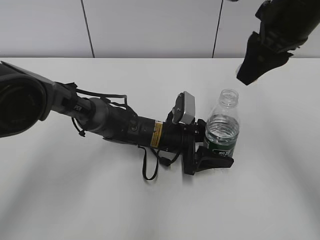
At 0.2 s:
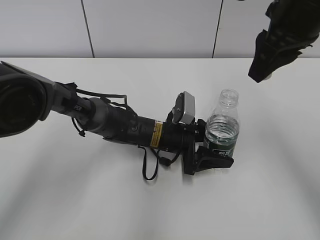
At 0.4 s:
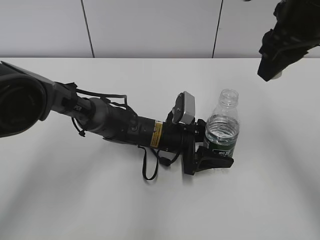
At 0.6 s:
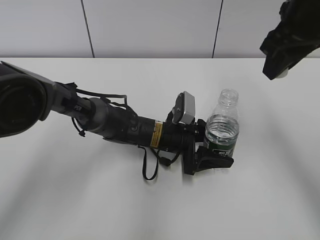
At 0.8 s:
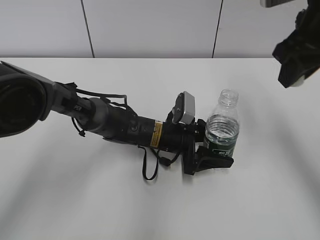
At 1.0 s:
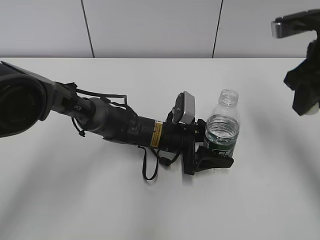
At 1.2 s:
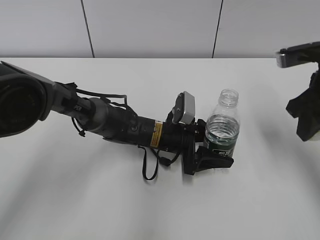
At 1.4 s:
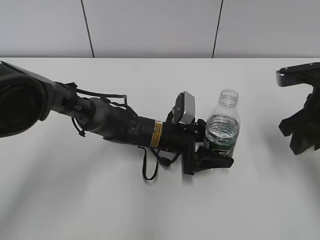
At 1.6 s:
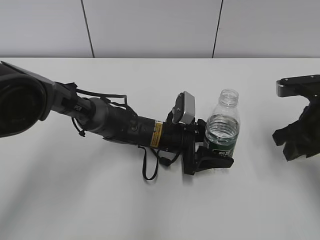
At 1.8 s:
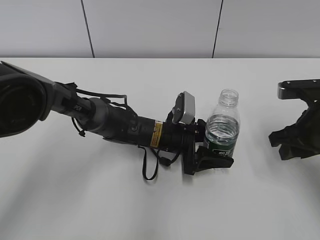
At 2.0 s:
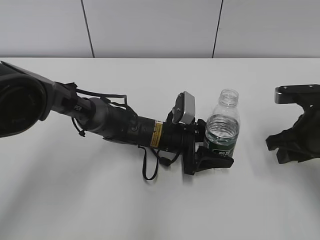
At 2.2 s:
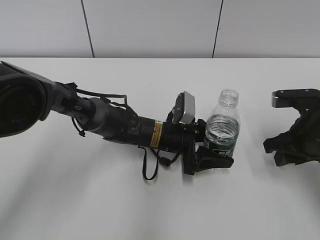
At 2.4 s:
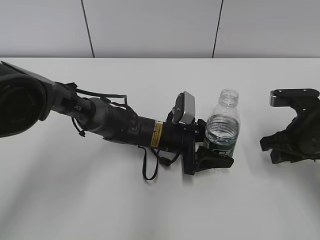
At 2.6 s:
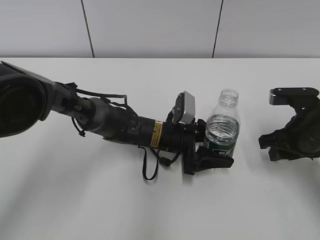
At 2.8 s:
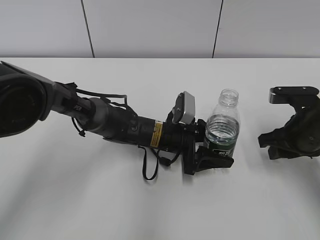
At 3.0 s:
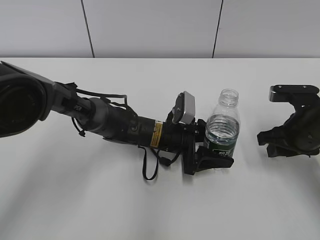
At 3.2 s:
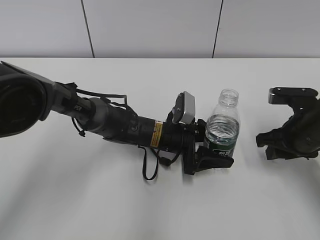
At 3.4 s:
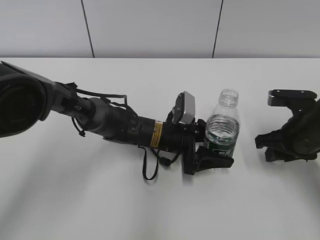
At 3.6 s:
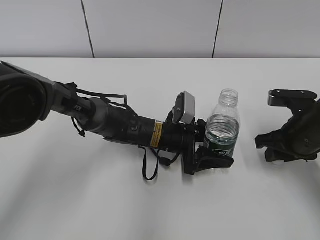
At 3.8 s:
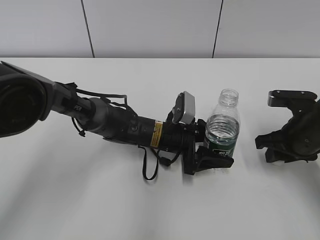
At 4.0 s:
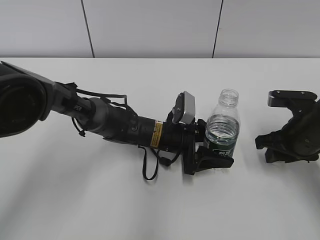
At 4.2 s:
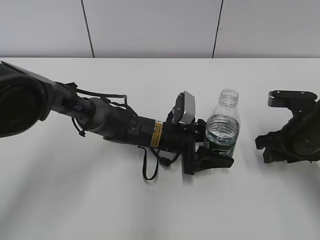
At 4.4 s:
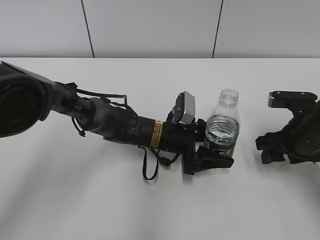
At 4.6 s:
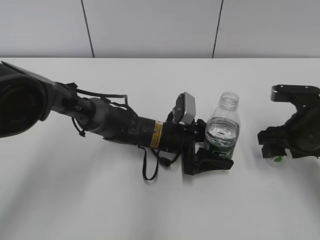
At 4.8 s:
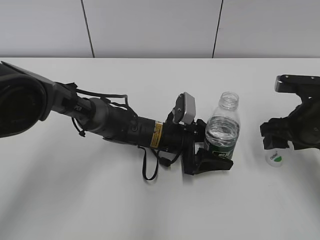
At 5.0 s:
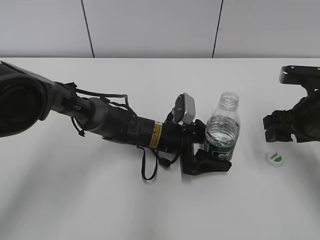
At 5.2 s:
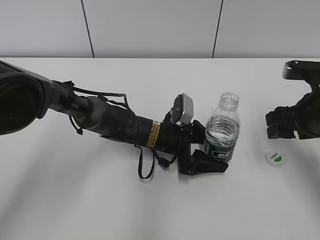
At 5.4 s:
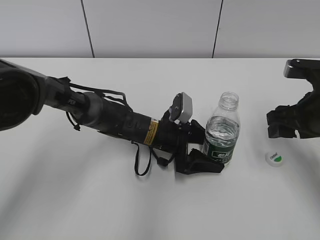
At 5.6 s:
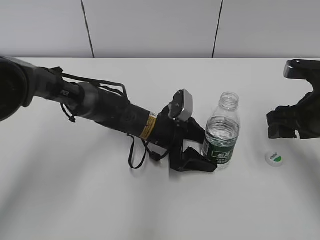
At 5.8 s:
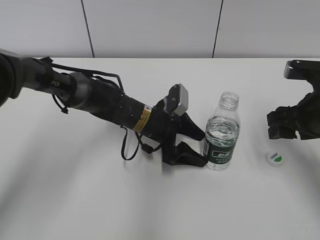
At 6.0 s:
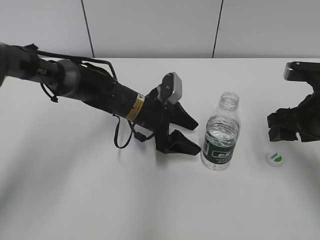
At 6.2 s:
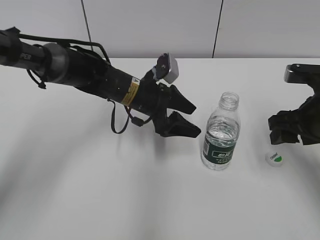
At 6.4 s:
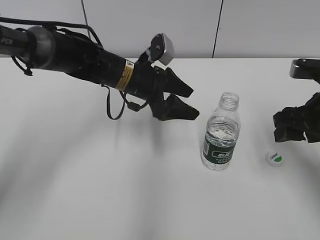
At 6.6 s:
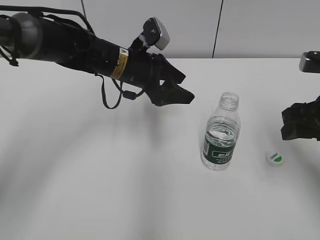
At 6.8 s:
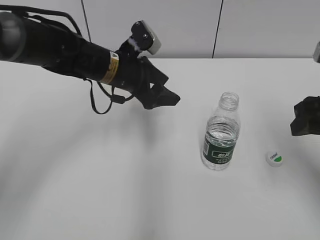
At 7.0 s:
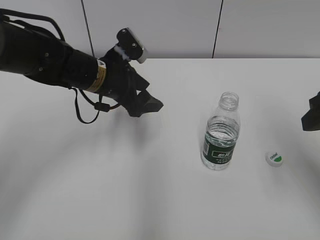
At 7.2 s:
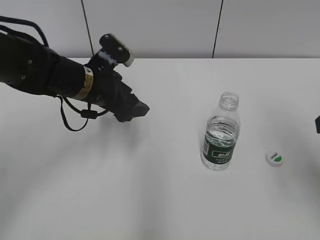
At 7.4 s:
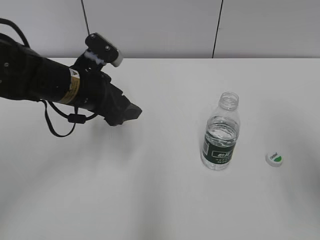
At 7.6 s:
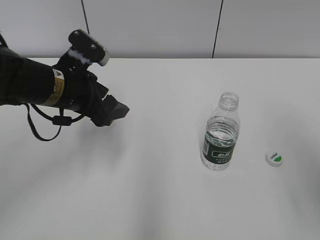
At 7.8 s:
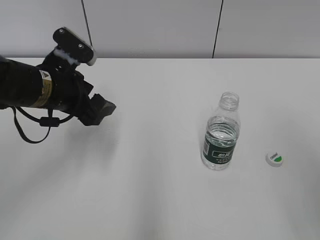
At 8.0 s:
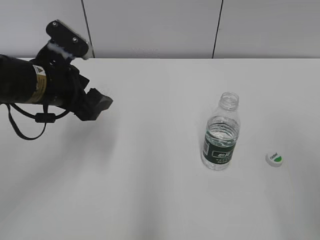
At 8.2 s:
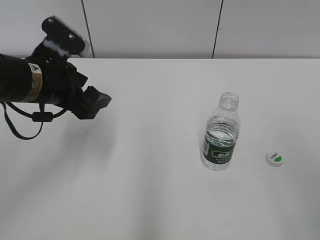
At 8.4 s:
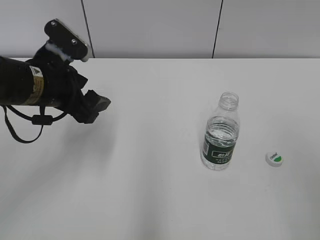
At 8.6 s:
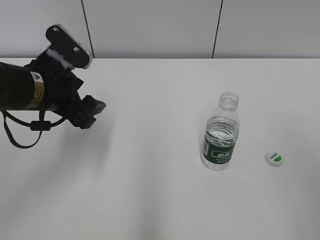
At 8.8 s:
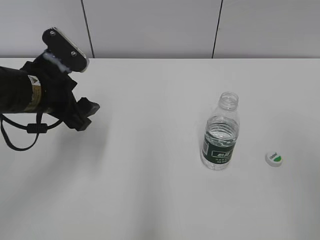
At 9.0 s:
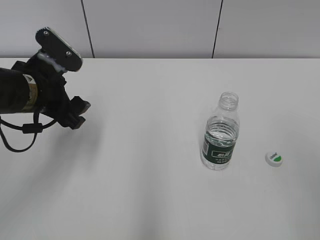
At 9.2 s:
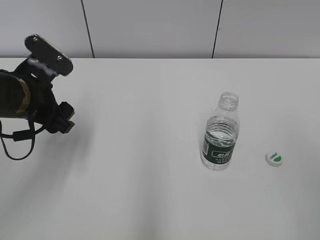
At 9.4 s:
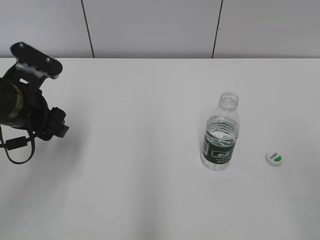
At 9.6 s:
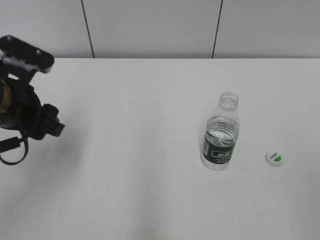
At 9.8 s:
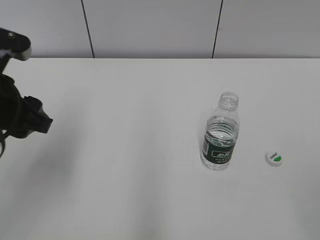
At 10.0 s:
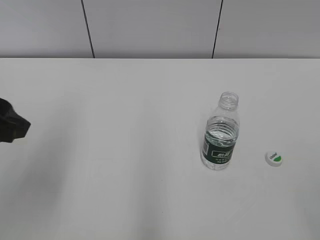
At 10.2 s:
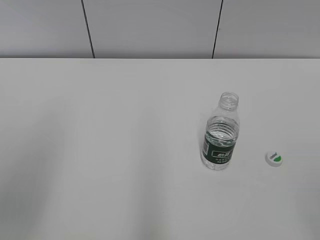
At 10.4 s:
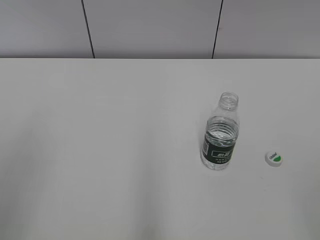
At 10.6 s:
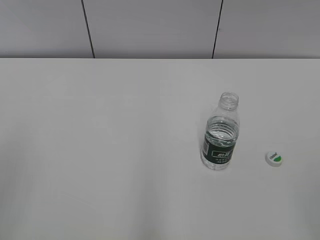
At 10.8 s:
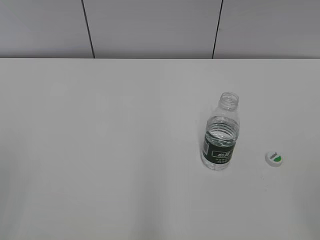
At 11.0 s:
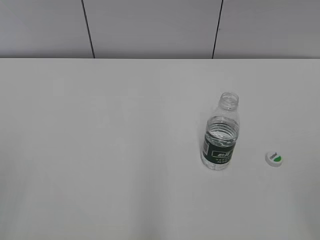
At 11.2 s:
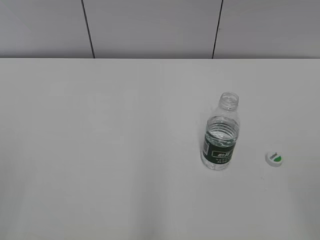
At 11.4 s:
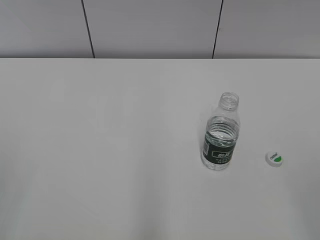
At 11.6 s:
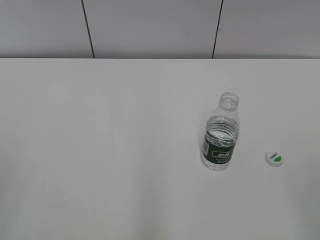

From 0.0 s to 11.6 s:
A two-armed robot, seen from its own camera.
Step, from 0.0 s to 5.0 s: Place the bottle cap on the table with the right hand.
Step, from 5.2 s to 6.0 s: Place the C'estbon with the left hand.
From 0.0 s to 1.4 s: The right gripper goes approximately 15 cm downward and to the right.
From 1.4 s to 2.8 s: The right gripper heads downward, covering roughly 5 cm.
From 2.8 s to 4.4 s: The right gripper opens.
From 4.4 s to 5.8 s: The right gripper moves upward, about 5 cm.
From 5.8 s to 7.2 s: The right gripper goes some 15 cm upward and backward. Meanwhile the left gripper heads upward and to the left, covering approximately 15 cm.
From 7.2 s to 8.8 s: The left gripper moves backward and to the left, roughly 10 cm. The right gripper goes roughly 15 cm backward and upward.
From 8.8 s to 10.2 s: The left gripper moves backward, upward and to the left, roughly 20 cm, and closes up.

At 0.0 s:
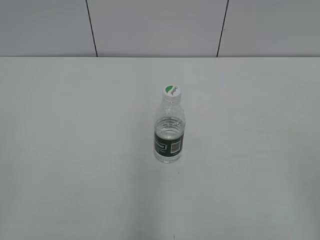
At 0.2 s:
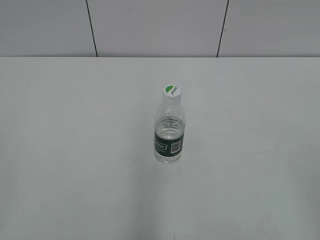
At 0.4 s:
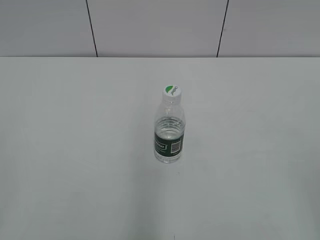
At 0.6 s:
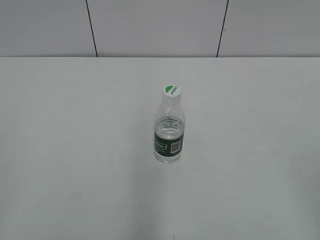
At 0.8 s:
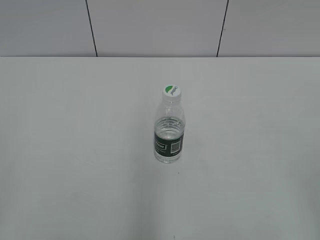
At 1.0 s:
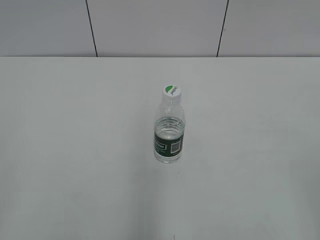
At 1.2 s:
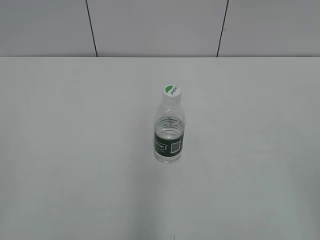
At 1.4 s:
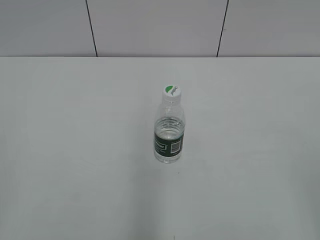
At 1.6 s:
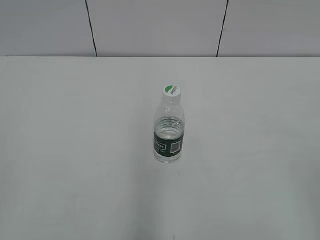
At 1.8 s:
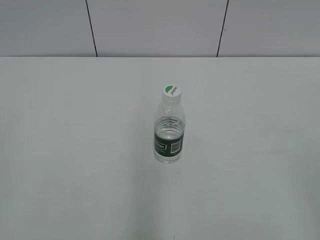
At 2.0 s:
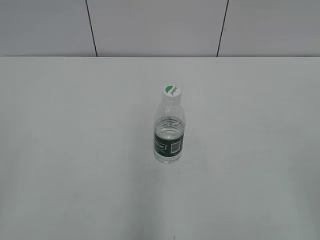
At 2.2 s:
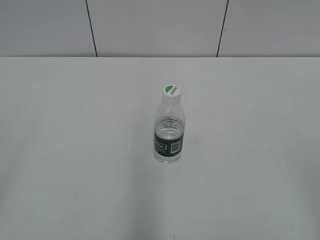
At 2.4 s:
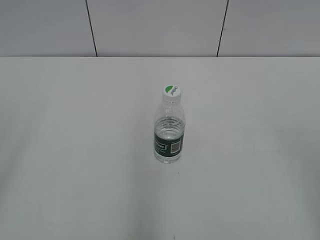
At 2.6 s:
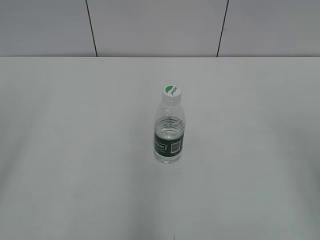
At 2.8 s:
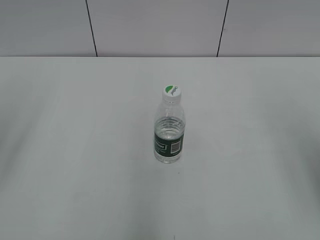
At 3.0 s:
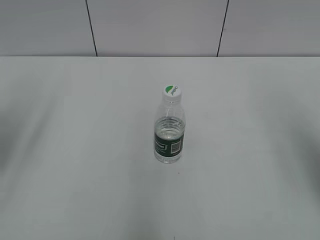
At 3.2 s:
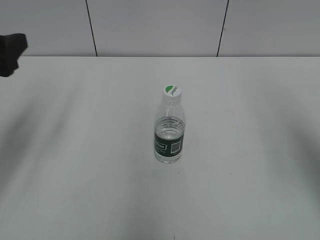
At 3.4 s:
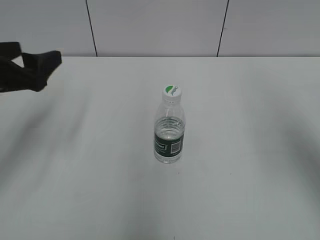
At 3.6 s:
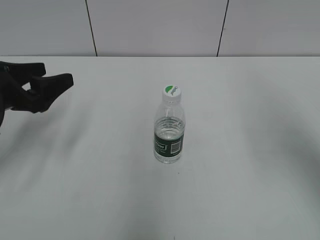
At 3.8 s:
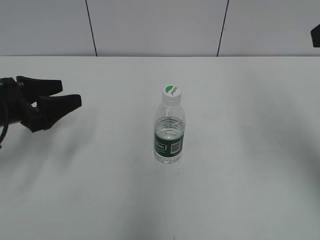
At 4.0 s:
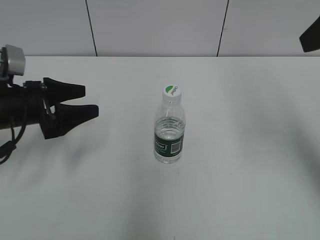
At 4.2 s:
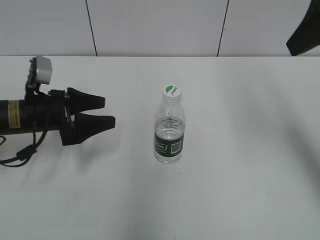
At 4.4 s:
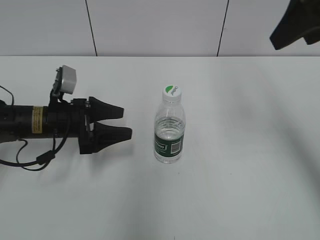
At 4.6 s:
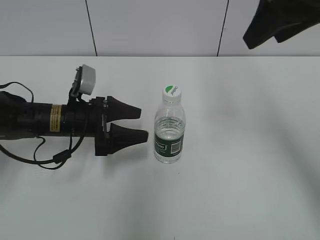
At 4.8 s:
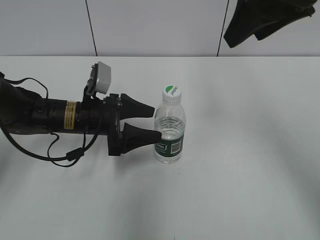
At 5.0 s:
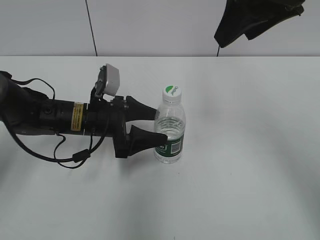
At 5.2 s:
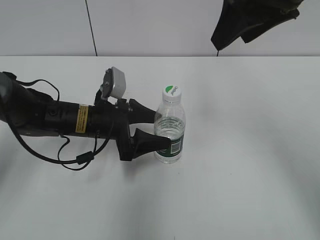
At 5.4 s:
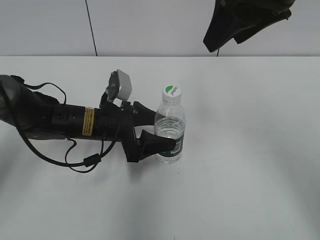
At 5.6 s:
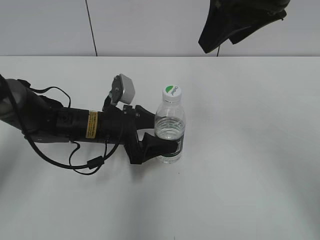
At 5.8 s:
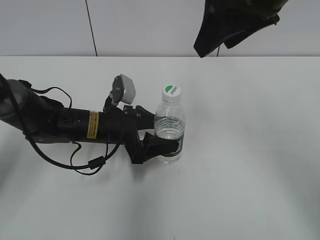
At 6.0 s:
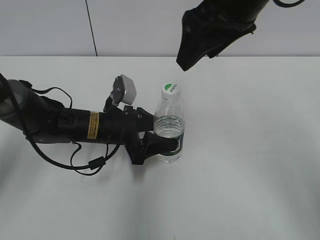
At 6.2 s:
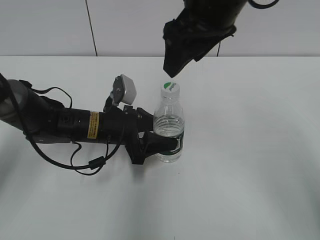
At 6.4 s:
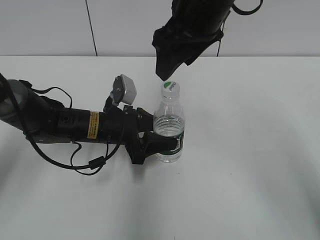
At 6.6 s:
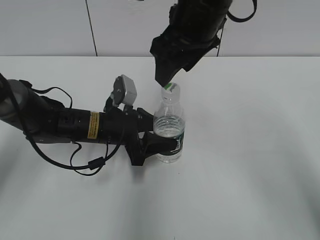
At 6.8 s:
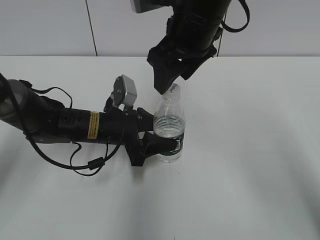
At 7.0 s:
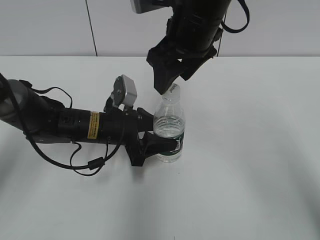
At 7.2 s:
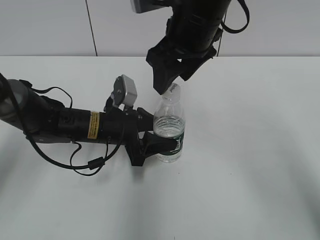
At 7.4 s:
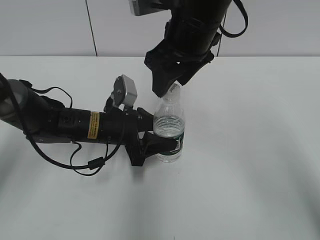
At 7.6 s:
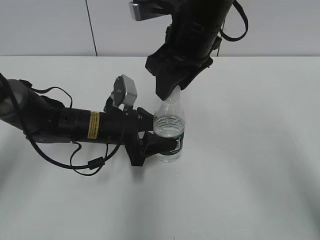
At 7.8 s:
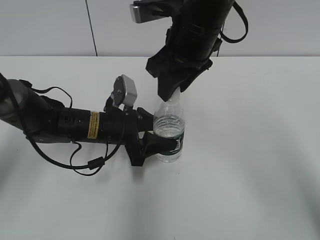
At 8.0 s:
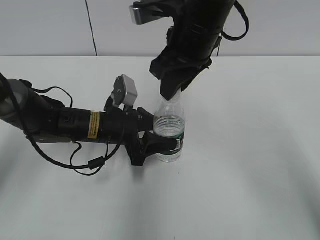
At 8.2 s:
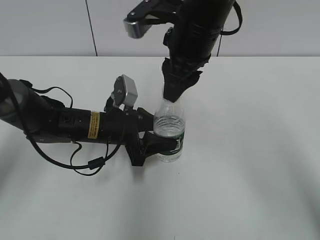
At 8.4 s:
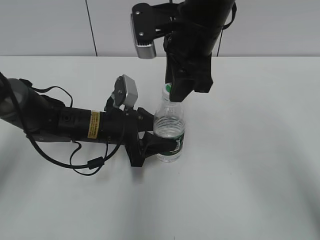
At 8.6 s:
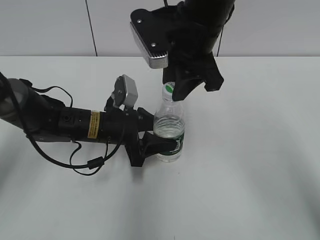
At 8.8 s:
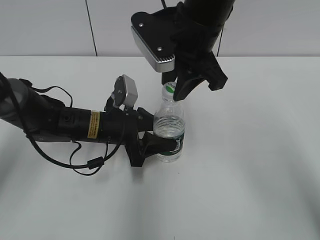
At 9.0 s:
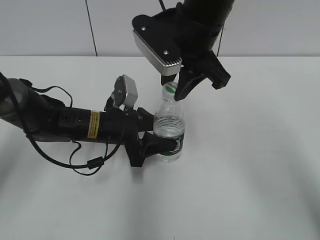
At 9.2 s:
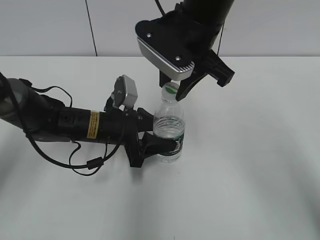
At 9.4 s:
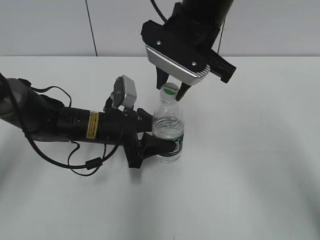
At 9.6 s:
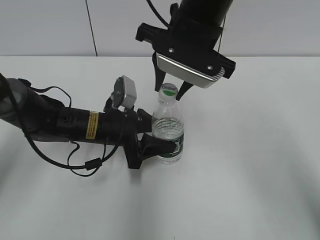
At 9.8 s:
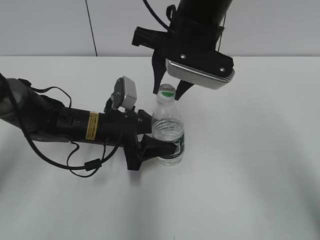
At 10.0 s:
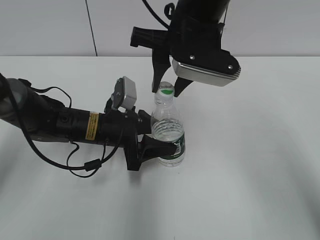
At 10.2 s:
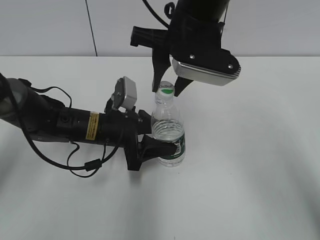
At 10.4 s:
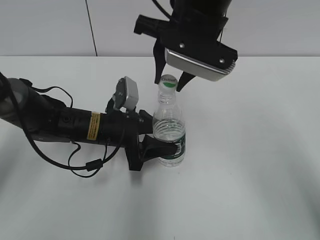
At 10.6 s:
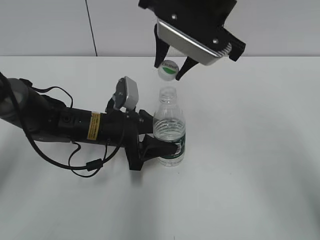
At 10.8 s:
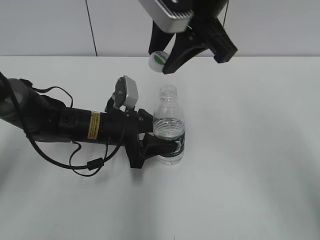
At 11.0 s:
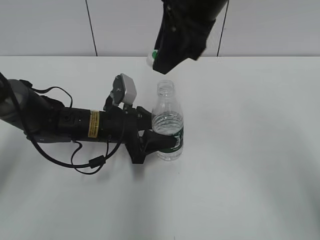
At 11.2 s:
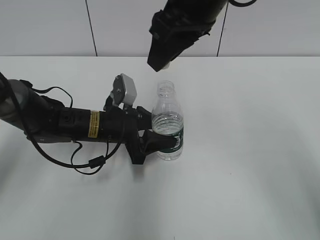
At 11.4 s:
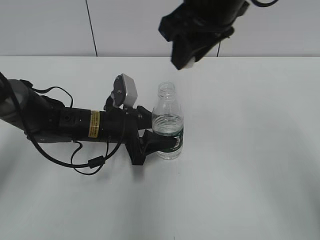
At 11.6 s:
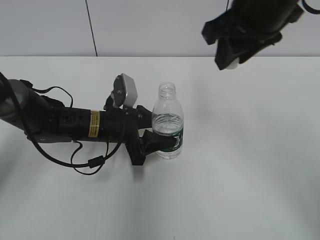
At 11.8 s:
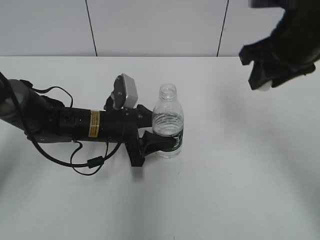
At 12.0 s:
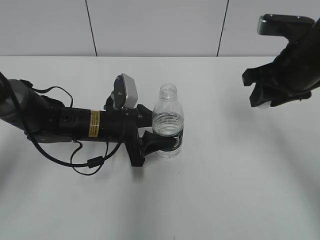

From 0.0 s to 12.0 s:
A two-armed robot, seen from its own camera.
Step, from 0.0 s to 6.0 s: Grasp the bottle and move it to the center of the table with the left gripper.
Step, from 6.4 s to 10.8 s: Unscrew the bottle cap with the right gripper while holding the bottle with the left gripper.
From 1.6 s to 3.0 s: The right gripper travels forward and upward by about 15 cm, while the left gripper is displaced forward by about 20 cm, and opens its fingers.
From 3.0 s to 4.4 s: The left gripper travels downward, forward and to the right by approximately 25 cm. Meanwhile the right gripper travels forward and to the left by about 15 cm.
From 4.4 s to 6.0 s: The right gripper travels to the left by about 10 cm. Meanwhile the left gripper travels to the right by approximately 10 cm, and closes its fingers.
From 6.0 s to 7.6 s: The right gripper moves downward and to the left, approximately 10 cm, and closes its fingers.
From 7.6 s to 9.0 s: The right gripper closes its fingers.
From 10.4 s to 12.0 s: The right gripper moves to the right, roughly 15 cm.
